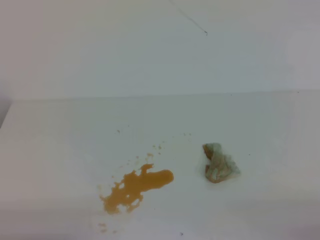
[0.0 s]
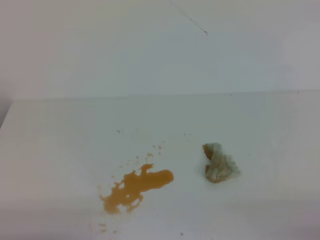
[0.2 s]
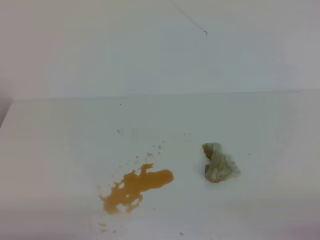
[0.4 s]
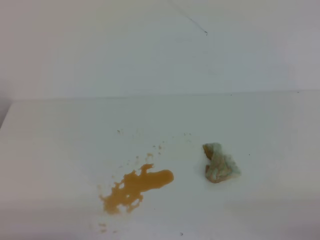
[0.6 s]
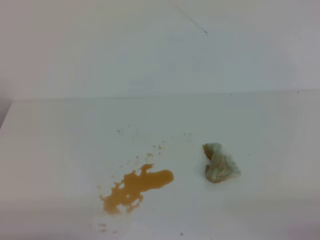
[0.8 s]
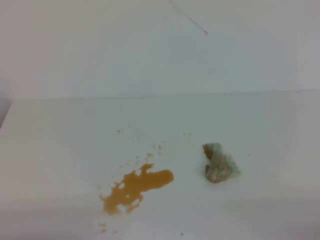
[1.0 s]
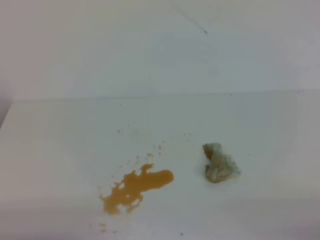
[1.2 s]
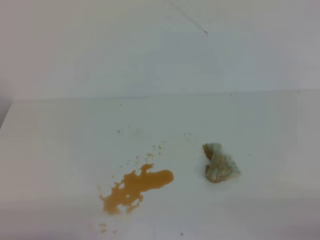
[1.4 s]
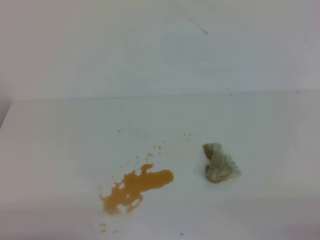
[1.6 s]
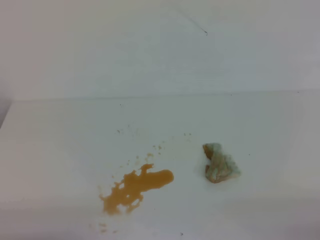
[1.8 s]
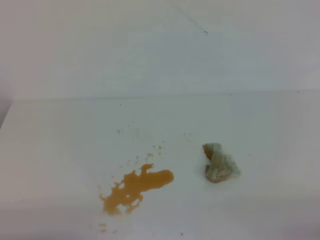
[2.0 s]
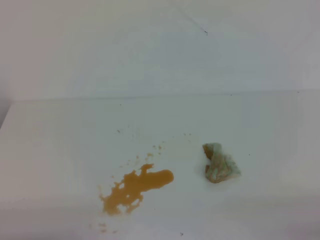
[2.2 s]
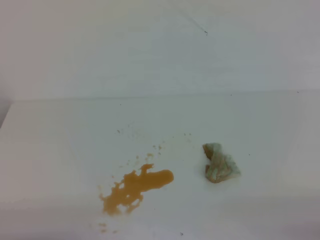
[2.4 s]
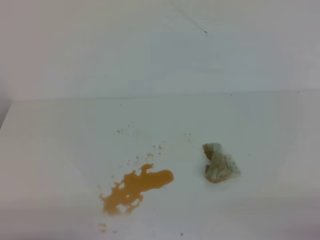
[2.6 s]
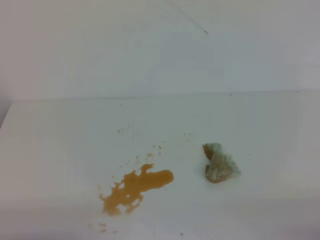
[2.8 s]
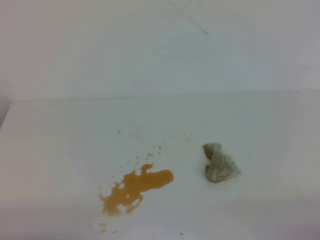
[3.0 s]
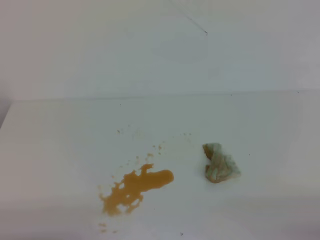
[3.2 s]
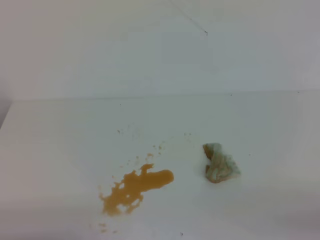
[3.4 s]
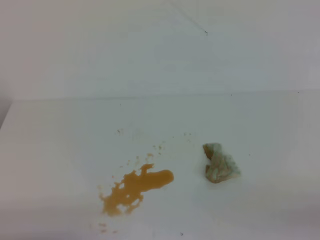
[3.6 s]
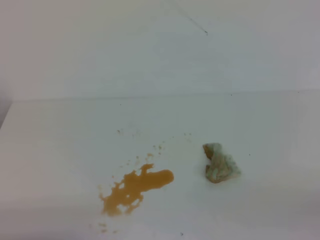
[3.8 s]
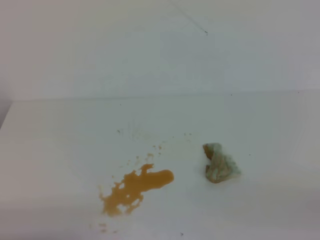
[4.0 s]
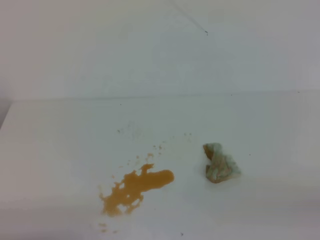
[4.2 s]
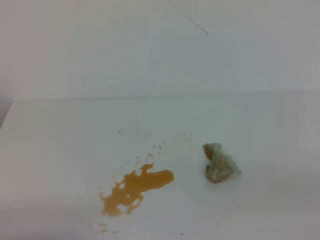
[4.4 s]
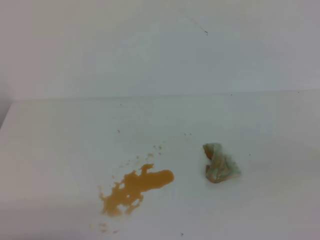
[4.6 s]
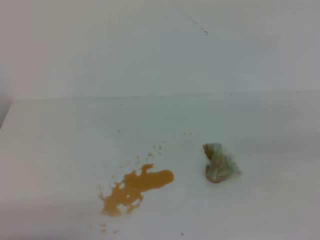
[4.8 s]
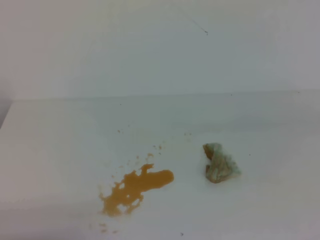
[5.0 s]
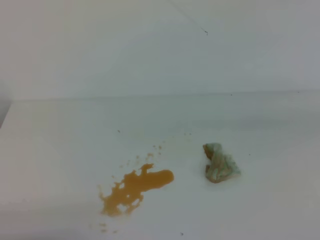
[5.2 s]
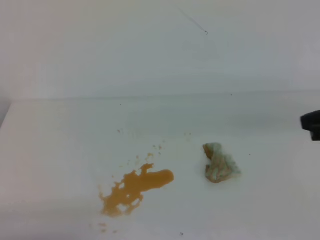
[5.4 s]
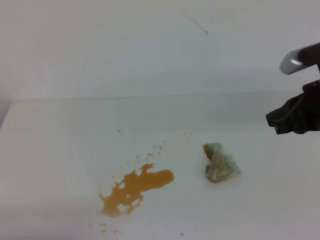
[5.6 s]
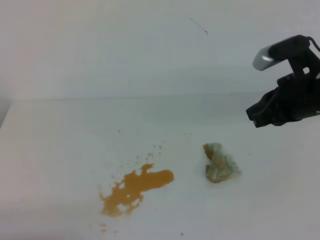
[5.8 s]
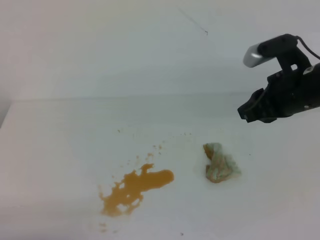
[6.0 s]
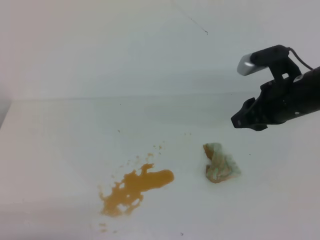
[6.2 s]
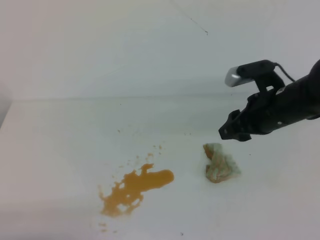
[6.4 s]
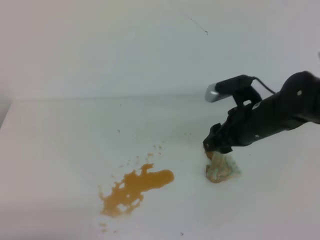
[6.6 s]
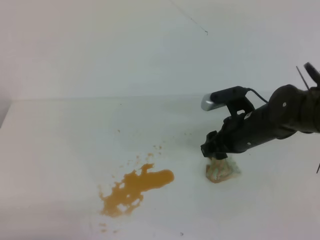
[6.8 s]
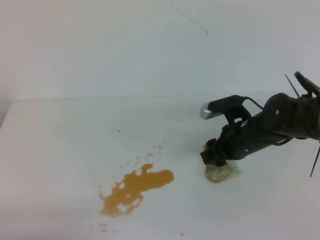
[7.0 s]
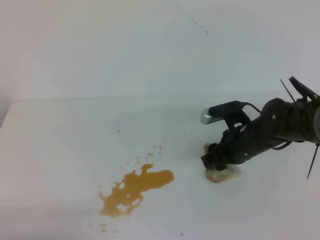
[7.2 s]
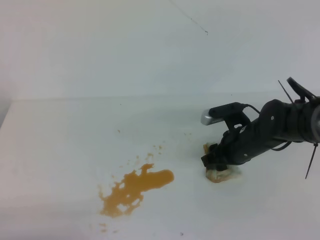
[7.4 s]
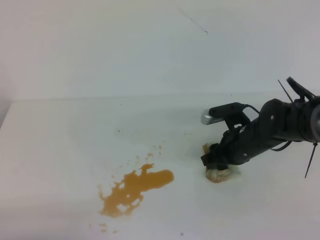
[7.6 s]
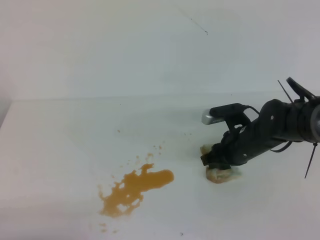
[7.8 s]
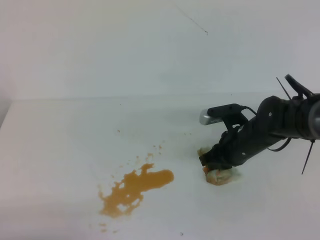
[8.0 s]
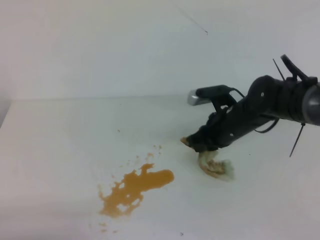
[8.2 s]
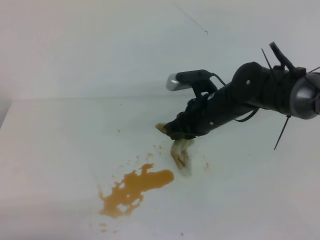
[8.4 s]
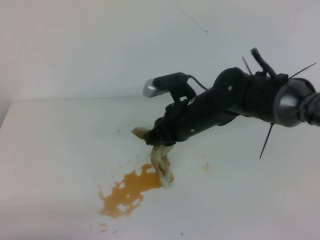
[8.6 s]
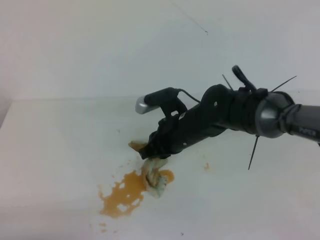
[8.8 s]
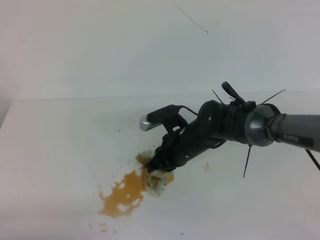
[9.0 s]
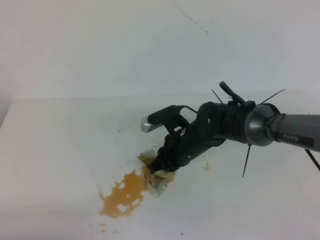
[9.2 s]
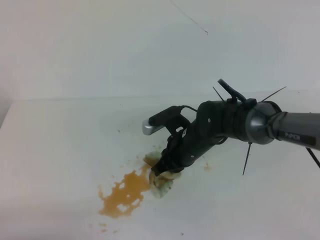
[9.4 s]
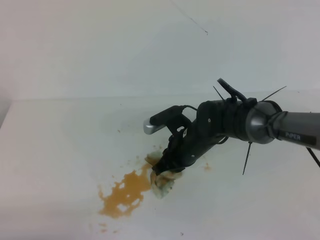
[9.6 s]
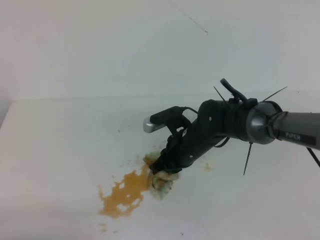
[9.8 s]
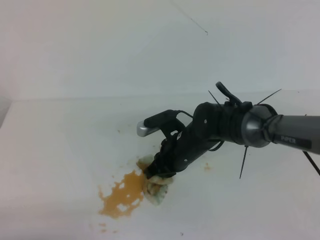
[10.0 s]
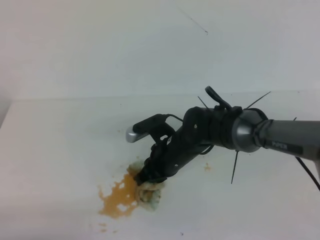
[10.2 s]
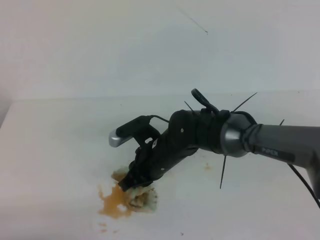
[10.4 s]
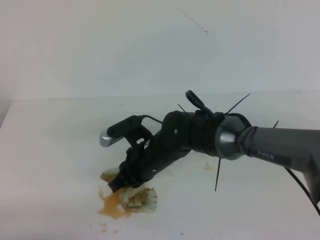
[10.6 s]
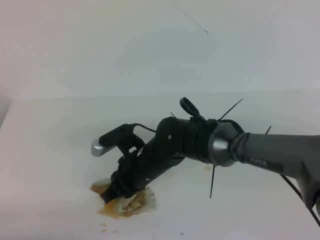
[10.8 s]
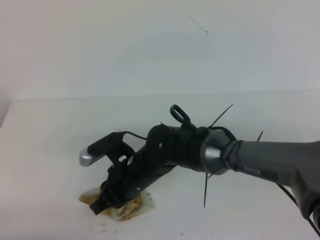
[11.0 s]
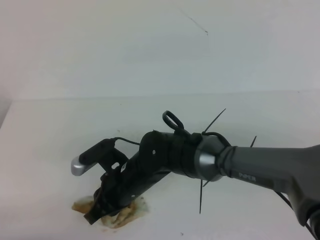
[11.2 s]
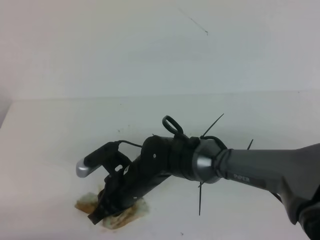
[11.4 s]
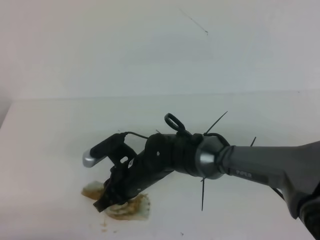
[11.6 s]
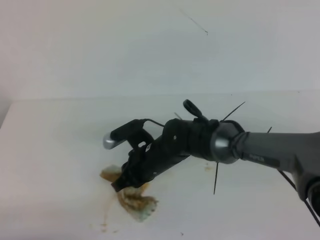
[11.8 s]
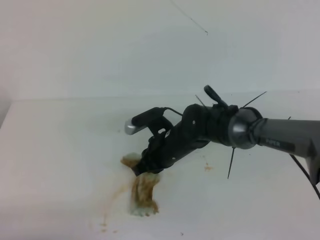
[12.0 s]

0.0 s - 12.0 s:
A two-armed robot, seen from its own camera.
0.0 s - 3.0 s: Both grippers stay about where they are.
4.4 s - 6.0 s: The right gripper travels forward and to the left by about 30 cm.
6.0 s - 7.6 s: The right gripper shifts some 15 cm downward, and opens.
7.6 s - 9.0 s: The right gripper moves to the left, about 10 cm, and closes.
9.0 s - 10.4 s: The right gripper shifts by roughly 5 cm.

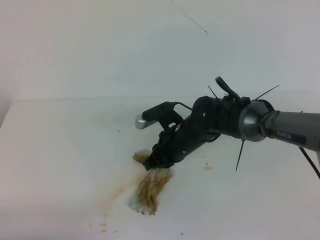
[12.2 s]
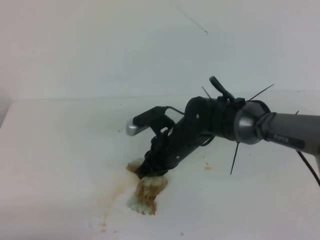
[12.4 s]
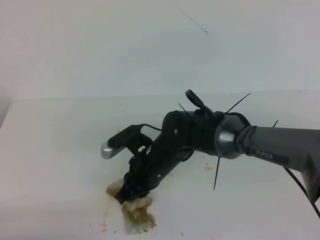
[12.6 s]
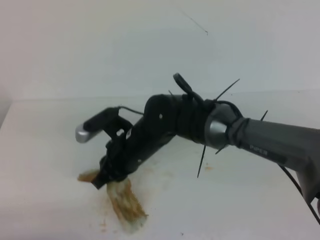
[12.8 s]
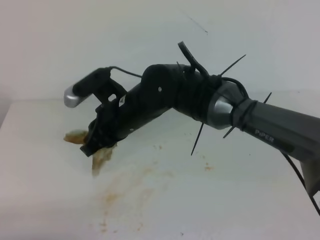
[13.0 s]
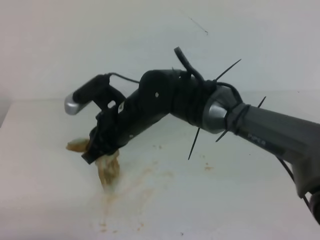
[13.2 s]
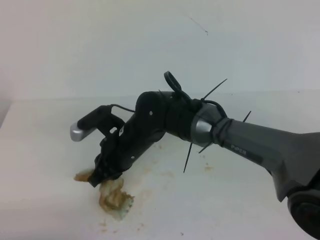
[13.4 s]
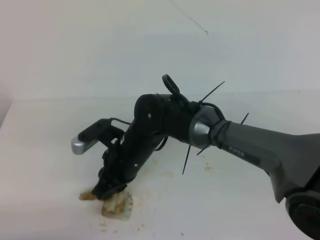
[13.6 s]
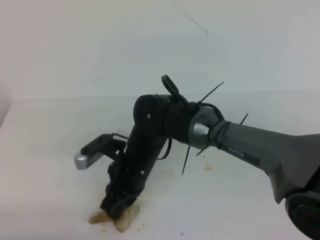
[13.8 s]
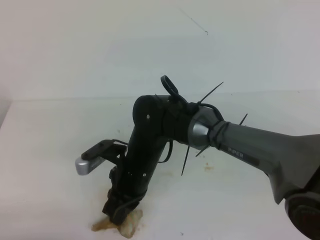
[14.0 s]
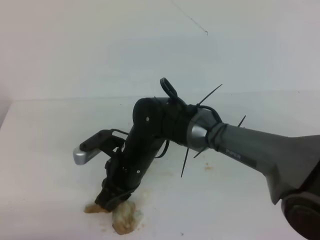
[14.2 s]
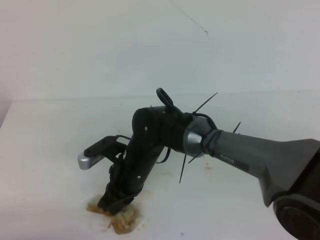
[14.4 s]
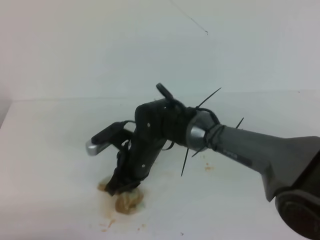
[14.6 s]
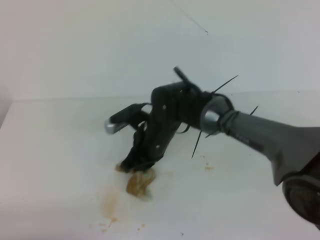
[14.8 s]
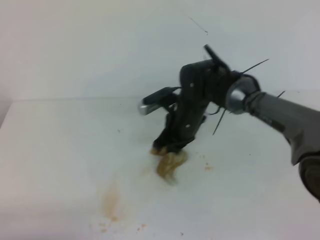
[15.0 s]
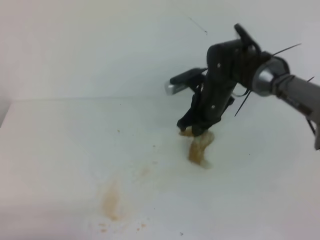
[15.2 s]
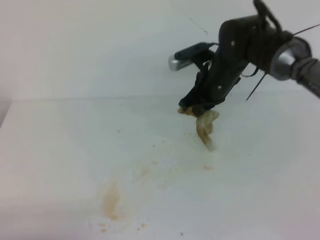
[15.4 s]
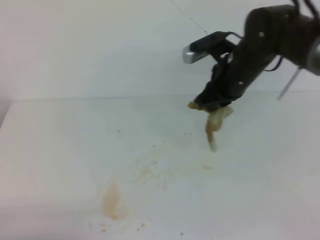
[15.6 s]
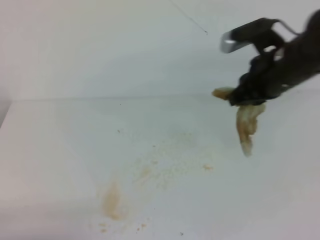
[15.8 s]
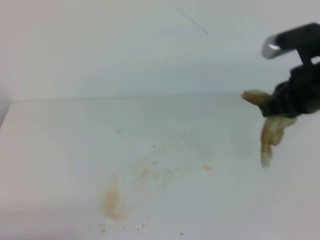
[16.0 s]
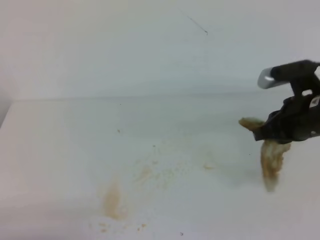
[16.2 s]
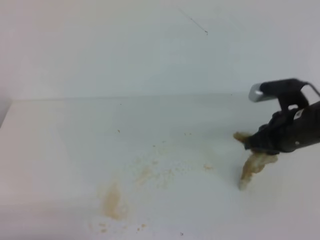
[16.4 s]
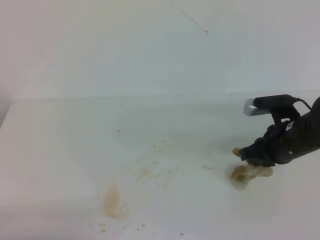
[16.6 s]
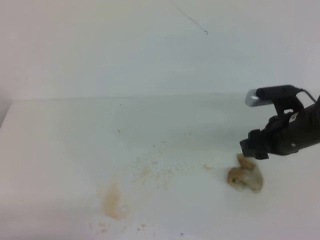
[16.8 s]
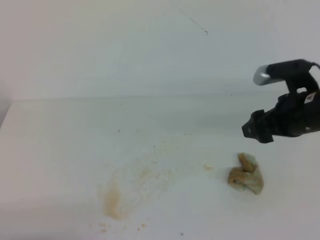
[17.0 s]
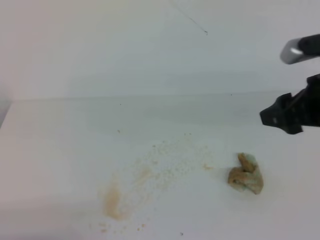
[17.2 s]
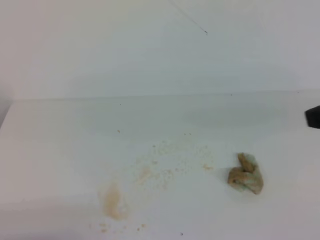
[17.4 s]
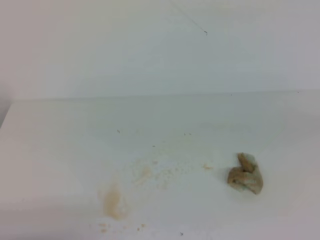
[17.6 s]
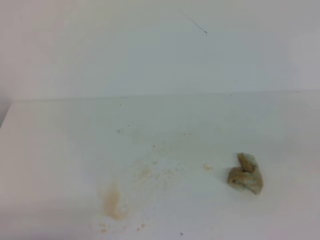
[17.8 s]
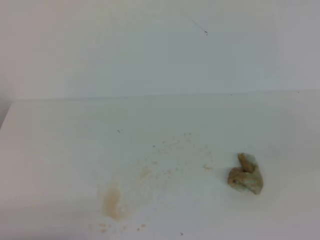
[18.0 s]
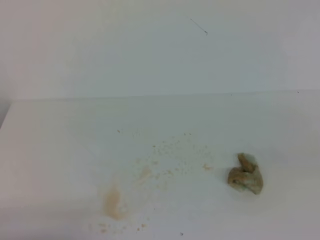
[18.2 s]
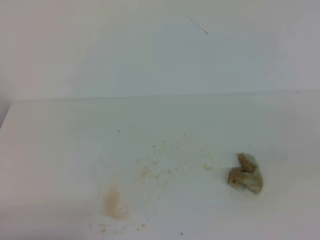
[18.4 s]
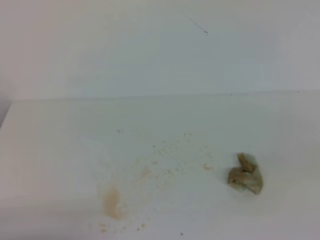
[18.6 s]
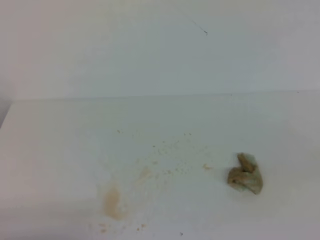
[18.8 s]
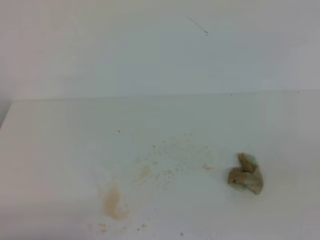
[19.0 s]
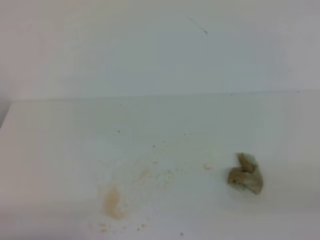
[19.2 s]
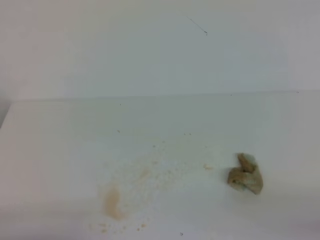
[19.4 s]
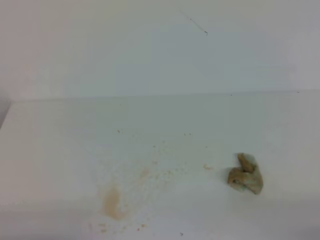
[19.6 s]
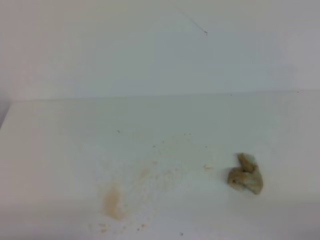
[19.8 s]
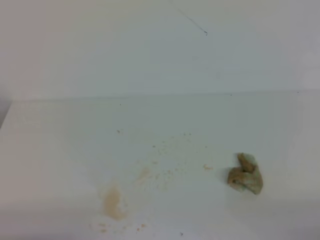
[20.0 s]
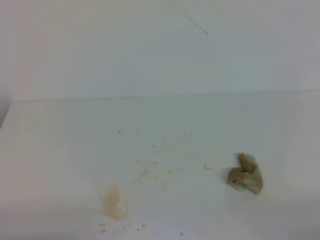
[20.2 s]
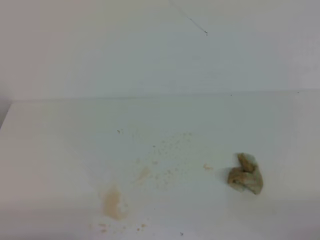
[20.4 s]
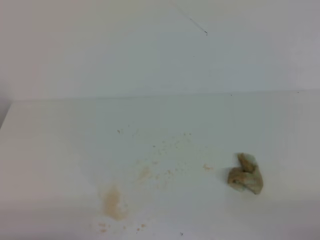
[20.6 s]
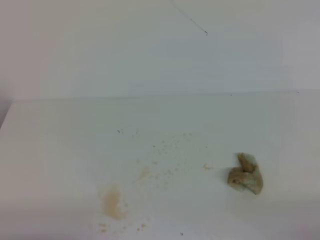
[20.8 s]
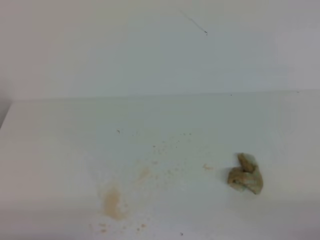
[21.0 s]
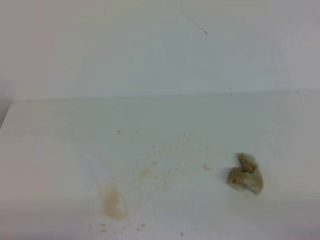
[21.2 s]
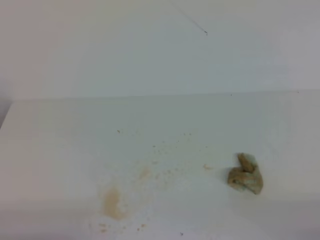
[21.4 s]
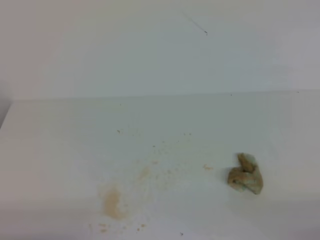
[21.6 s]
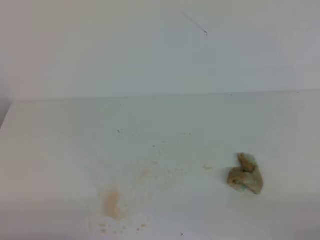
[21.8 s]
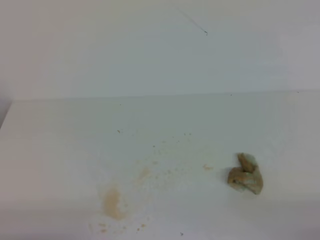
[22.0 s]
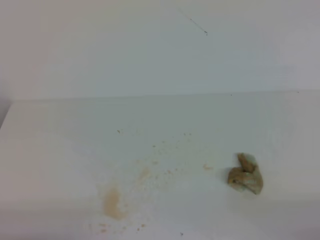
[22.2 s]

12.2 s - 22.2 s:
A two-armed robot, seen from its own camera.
12.2 s - 13.6 s: The right gripper moves to the left, about 10 cm.
13.6 s - 15.0 s: The right gripper is displaced to the right and forward by approximately 10 cm.
15.0 s - 16.4 s: The right gripper heads to the right and backward, covering approximately 20 cm.
16.4 s - 18.0 s: The right gripper is displaced backward and upward by about 25 cm, and opens, then closes once more.
20.8 s - 22.2 s: Both grippers stay about where they are.

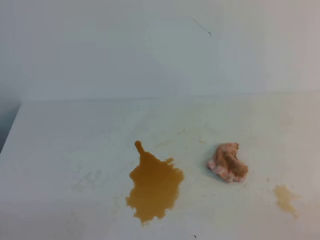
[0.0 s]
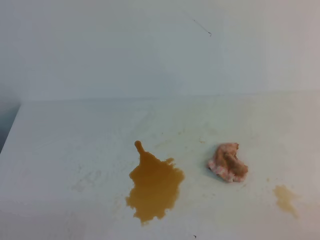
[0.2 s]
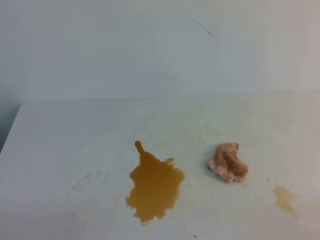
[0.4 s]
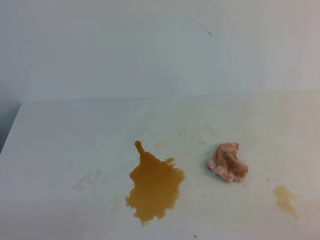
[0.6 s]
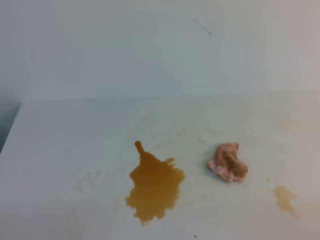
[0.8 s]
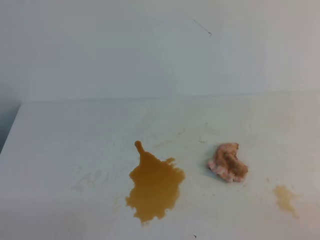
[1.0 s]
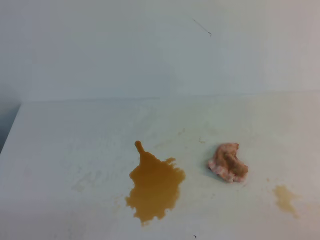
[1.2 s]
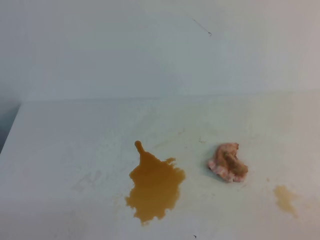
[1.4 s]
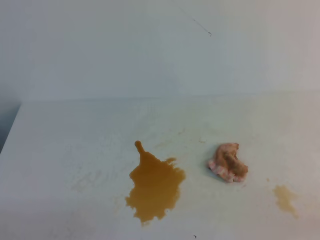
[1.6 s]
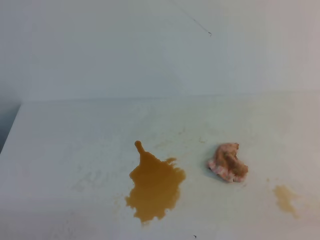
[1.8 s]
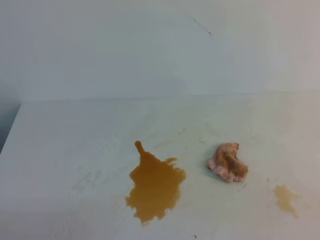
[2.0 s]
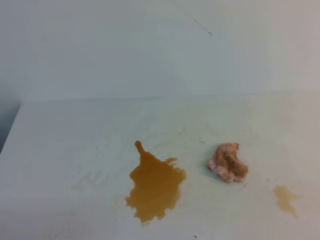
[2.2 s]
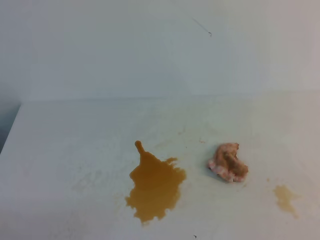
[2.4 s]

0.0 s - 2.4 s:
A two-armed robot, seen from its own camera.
0.0 s - 1.2 s: The two grippers keep their place.
